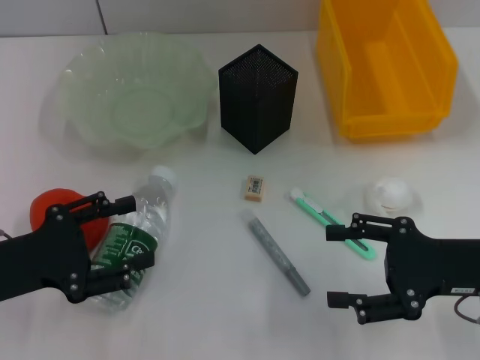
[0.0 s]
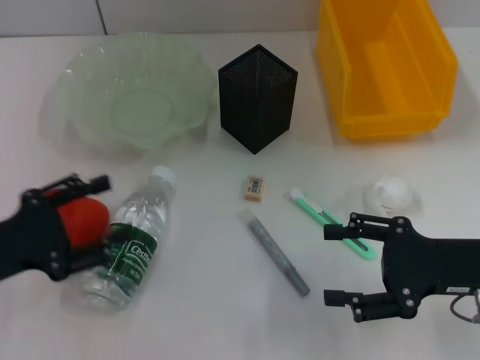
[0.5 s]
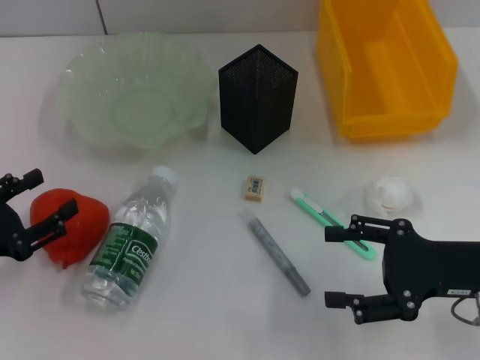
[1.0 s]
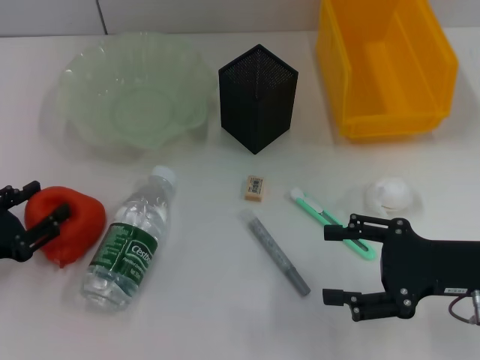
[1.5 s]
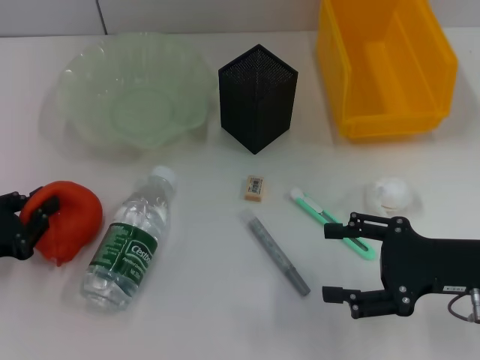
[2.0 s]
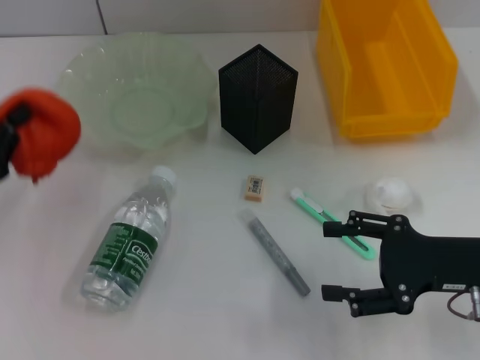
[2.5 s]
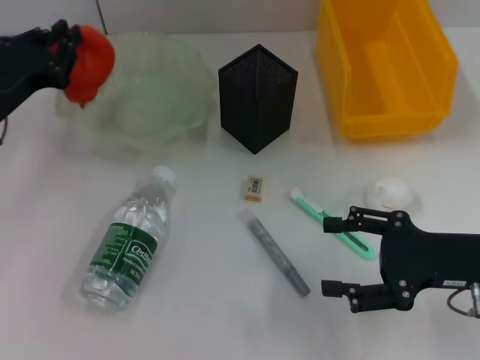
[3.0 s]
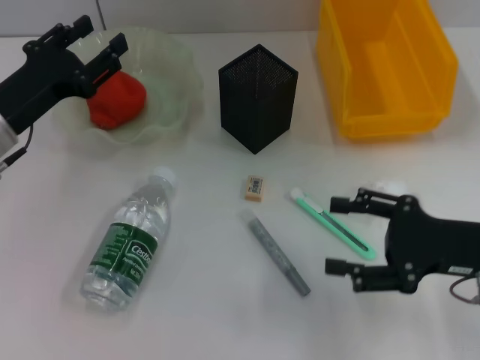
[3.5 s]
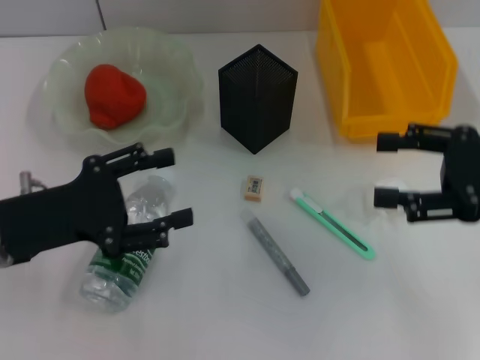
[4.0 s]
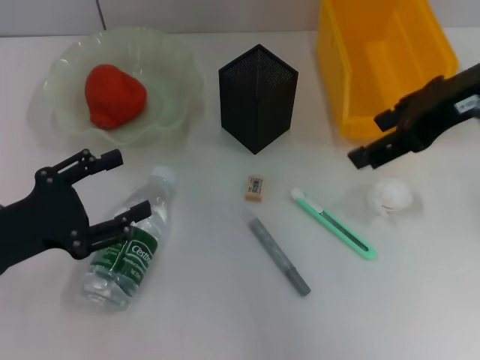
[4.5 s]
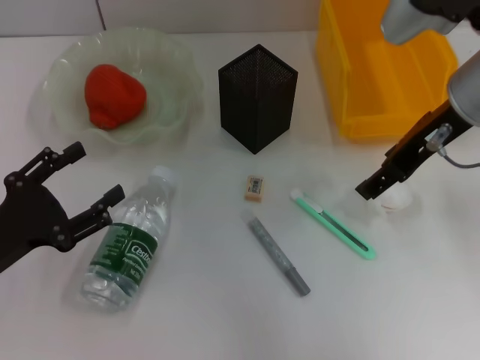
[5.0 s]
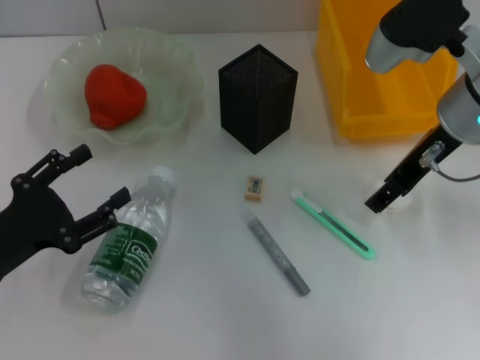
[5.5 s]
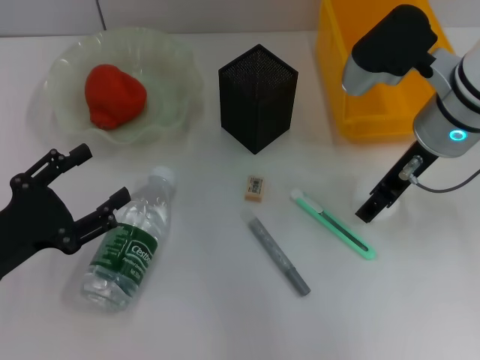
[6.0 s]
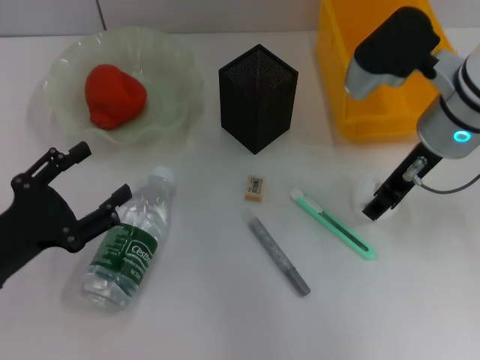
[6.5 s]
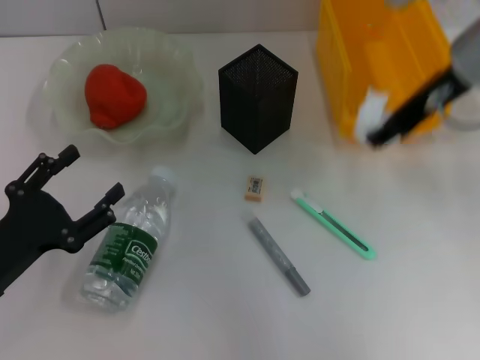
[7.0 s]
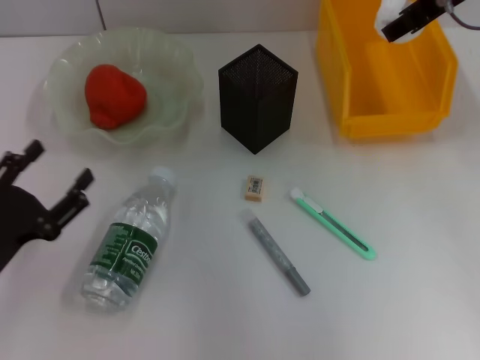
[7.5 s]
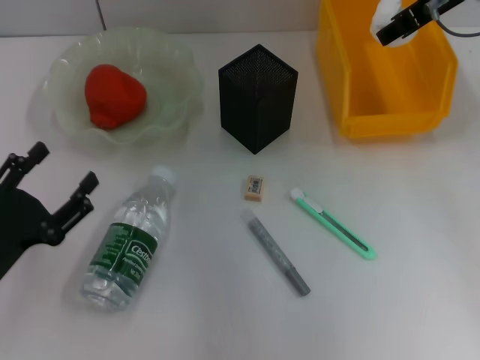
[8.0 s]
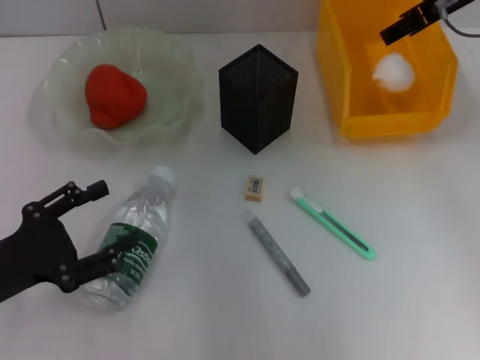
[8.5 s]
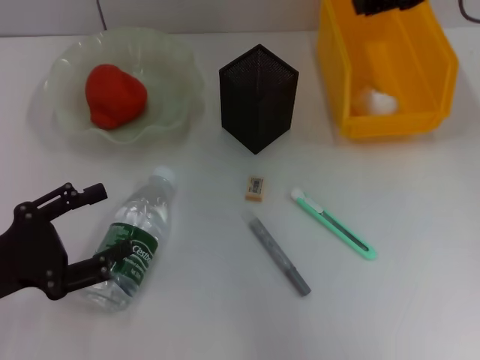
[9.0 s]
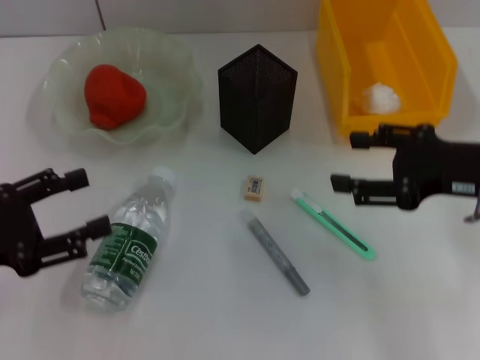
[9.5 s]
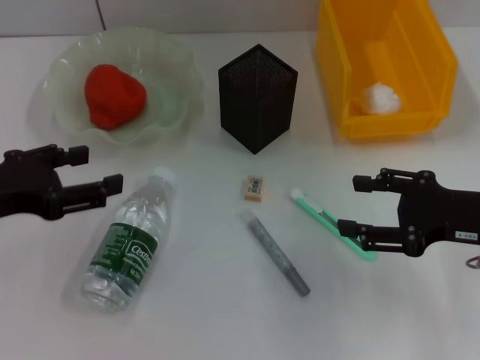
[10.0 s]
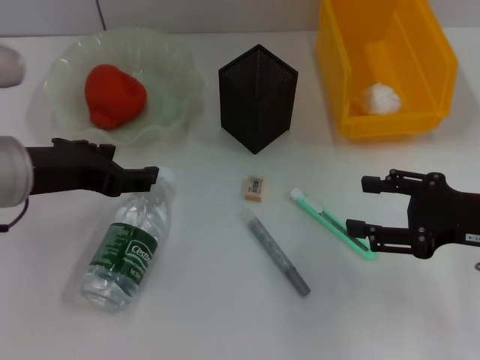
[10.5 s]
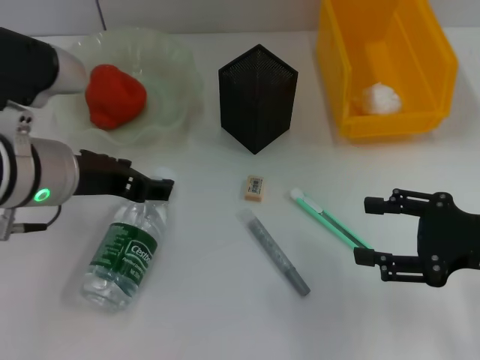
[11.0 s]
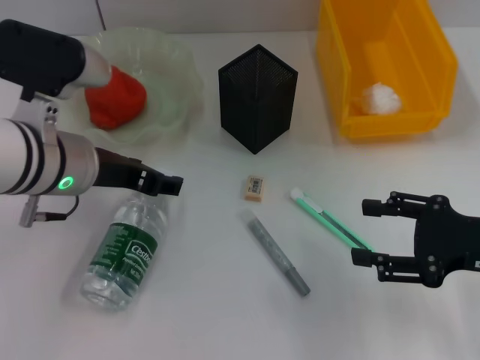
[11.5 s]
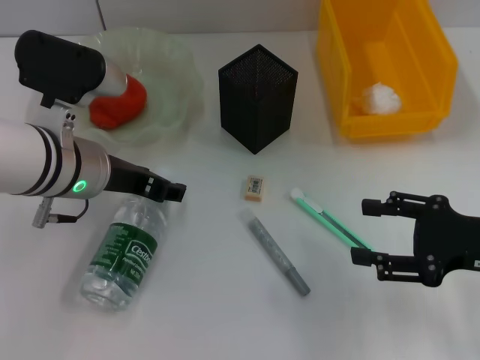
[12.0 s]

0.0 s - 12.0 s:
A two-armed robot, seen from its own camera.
Step, 0.0 s - 1.5 s: Grab the orange with the left hand.
Step, 2.0 s - 3.5 s: Place the orange into the fruit bowl with the left hand.
Step, 4.0 s - 6.0 s: Grab the paper ball with the right hand.
Step, 6.5 s - 8.5 s: Place the paper ball into the trash can with the right hand.
0.0 s - 2.0 s: The left gripper ends up about 5 cm from where it was, and closes up.
2.0 s - 4.0 s: The right gripper goes roughly 10 cm upward, while the left gripper shifts about 10 cm to the right and upward, moves roughly 15 cm forward and comes back, and opens up.
4.0 s - 6.0 s: The left gripper moves approximately 5 cm, while the right gripper shifts about 15 cm to the left and forward.
6.0 s - 8.0 s: The right gripper is displaced upward and forward by roughly 10 cm.
8.0 s - 10.0 s: The right gripper goes some 25 cm backward, downward and to the right. The left gripper goes approximately 15 cm upward.
10.0 s - 12.0 s: The left gripper is displaced to the right and forward by some 15 cm.

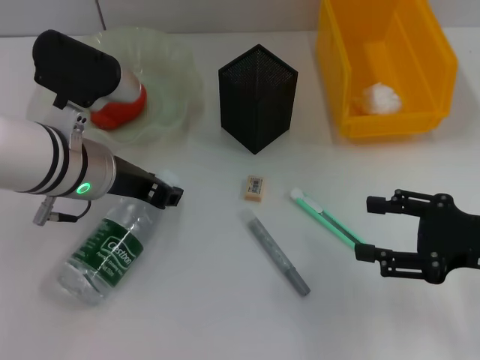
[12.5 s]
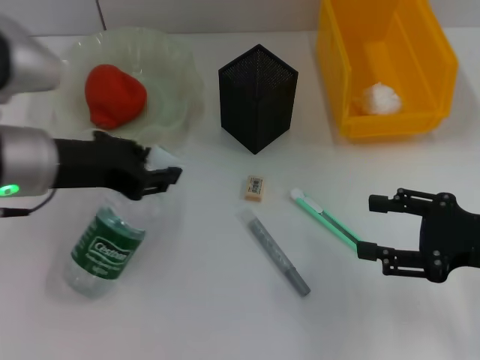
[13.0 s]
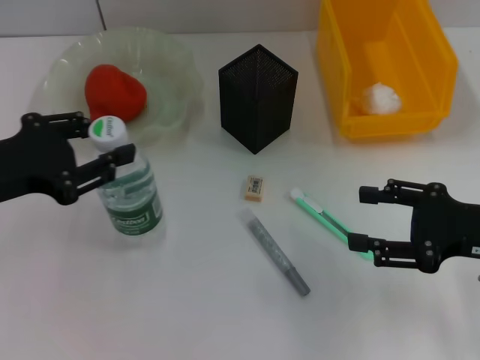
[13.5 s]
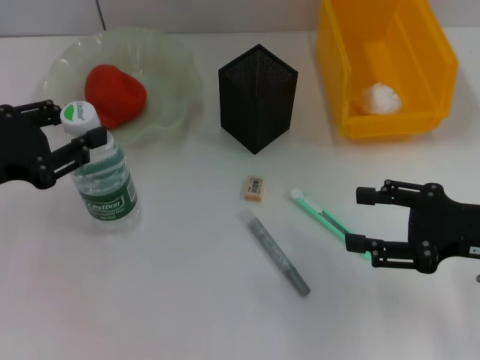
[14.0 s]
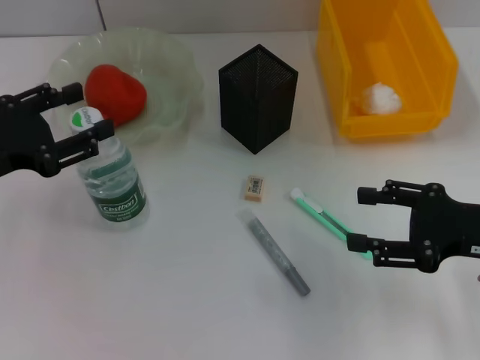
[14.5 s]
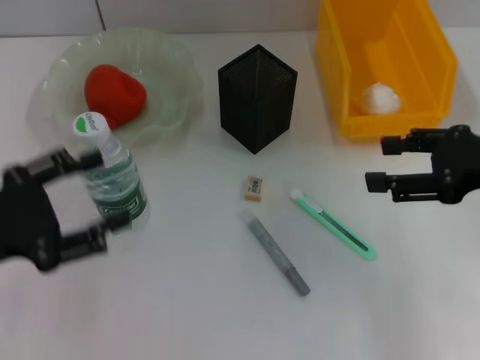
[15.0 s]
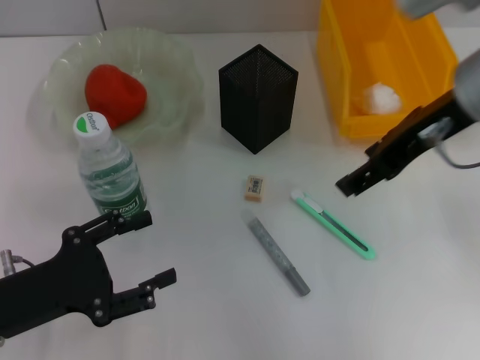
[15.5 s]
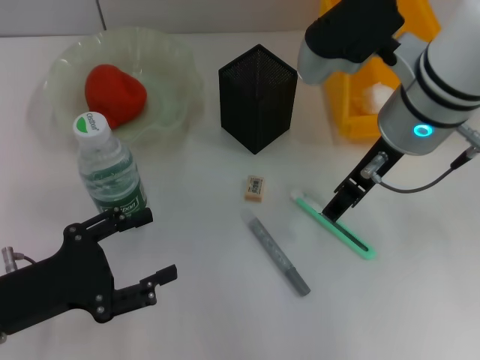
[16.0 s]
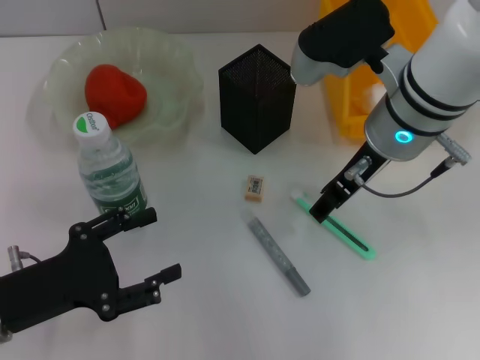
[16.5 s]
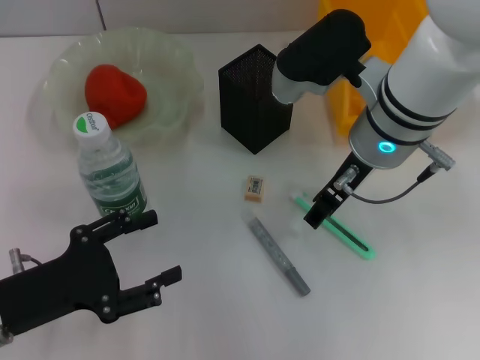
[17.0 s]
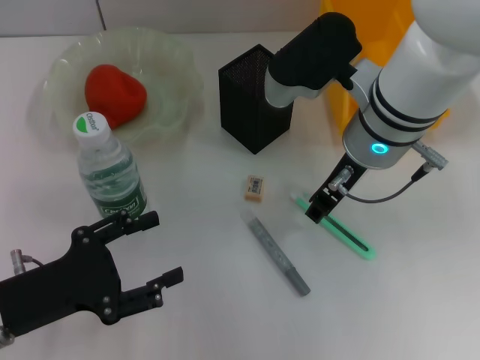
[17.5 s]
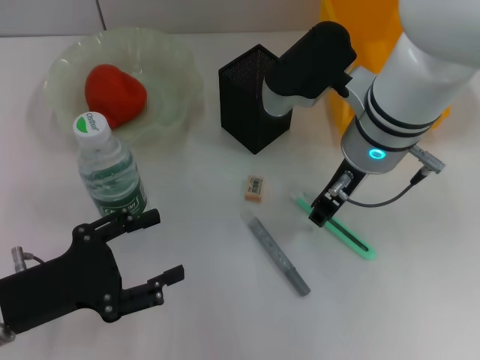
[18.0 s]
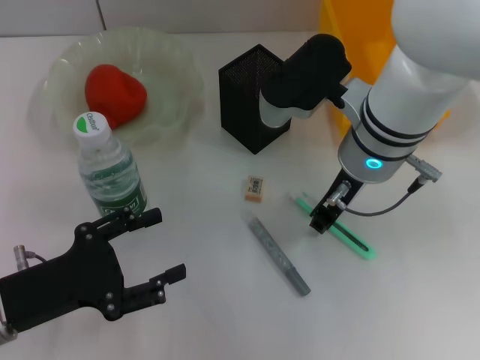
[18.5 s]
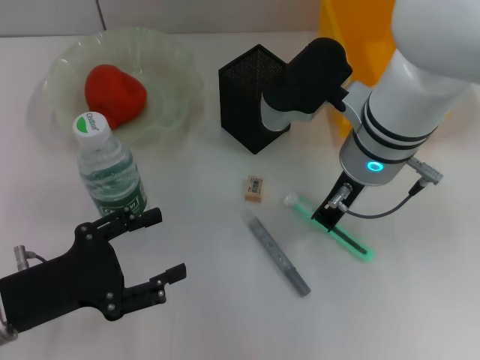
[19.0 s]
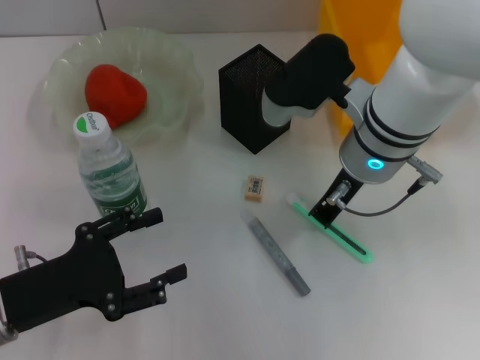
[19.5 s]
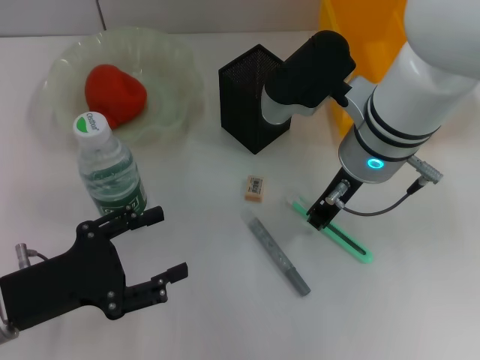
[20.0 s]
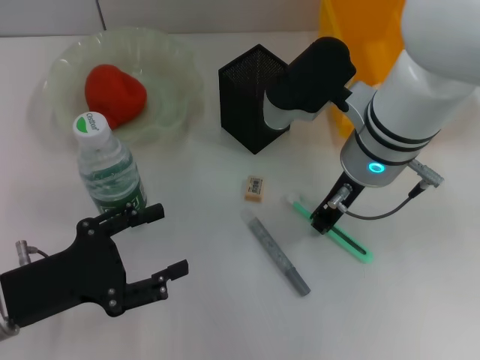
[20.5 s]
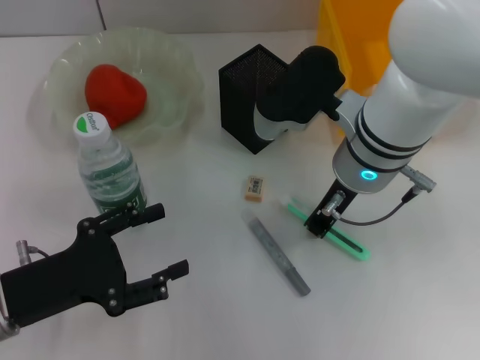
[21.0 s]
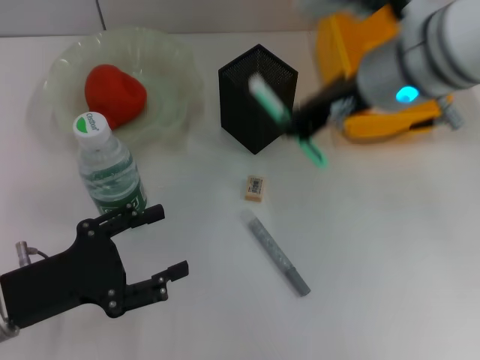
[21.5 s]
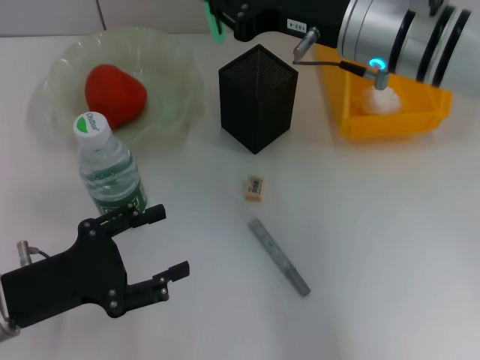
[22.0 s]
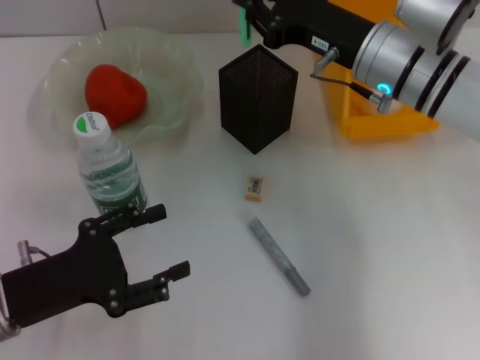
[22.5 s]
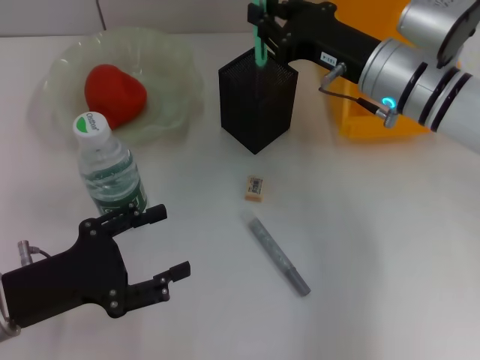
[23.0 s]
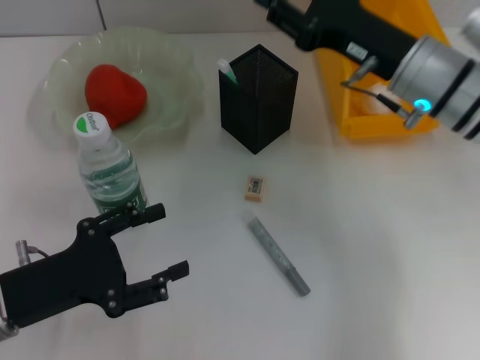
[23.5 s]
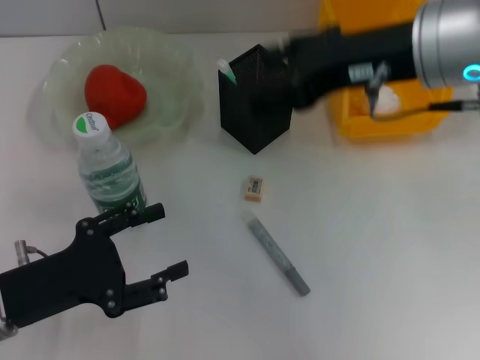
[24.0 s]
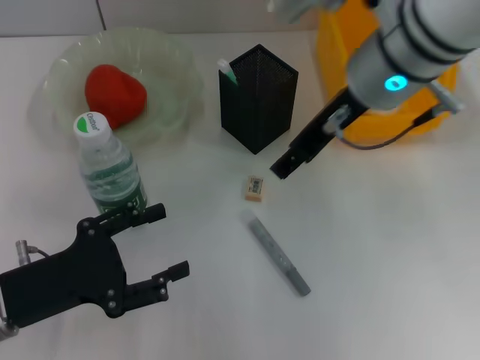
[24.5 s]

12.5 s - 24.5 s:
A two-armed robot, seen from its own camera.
Step, 13.0 s - 14.0 s: Place the water bottle on the table with the left hand.
Step, 14.5 s - 18.0 s: Grab the blue utility knife with the right hand.
Step, 18.5 s - 23.0 s: Place the blue utility knife into the pen holder with the right hand.
12.5 s - 14.5 s: The left gripper heads to the left and backward, covering roughly 15 cm.
14.5 s - 16.5 s: The right gripper moves to the left, forward and upward, about 20 cm; the left gripper moves downward and backward, some 10 cm.
16.5 s - 18.5 s: The right gripper closes its fingers.
18.5 s - 20.5 s: Both grippers stay about where they are.
20.5 s - 22.5 s: The right gripper goes upward and returns, about 10 cm each way.
22.5 s - 24.5 s: The right gripper travels upward by some 10 cm, and opens.

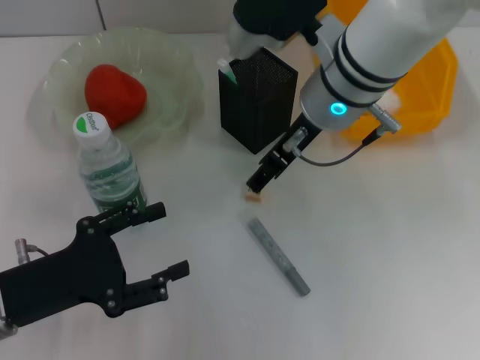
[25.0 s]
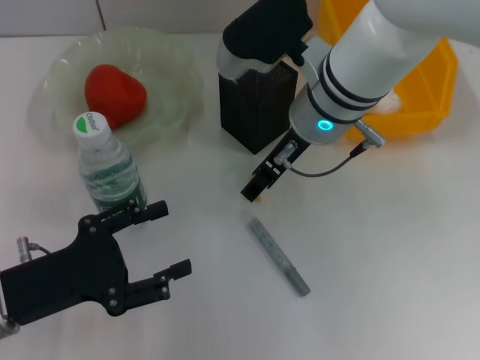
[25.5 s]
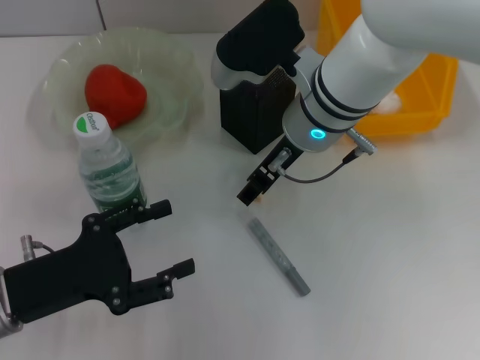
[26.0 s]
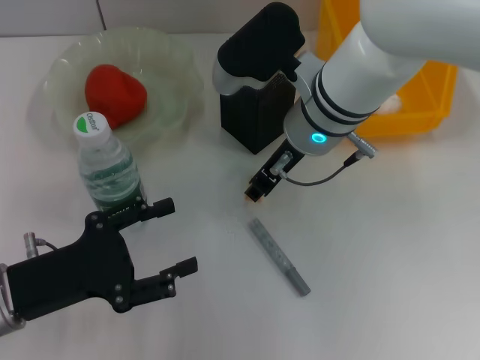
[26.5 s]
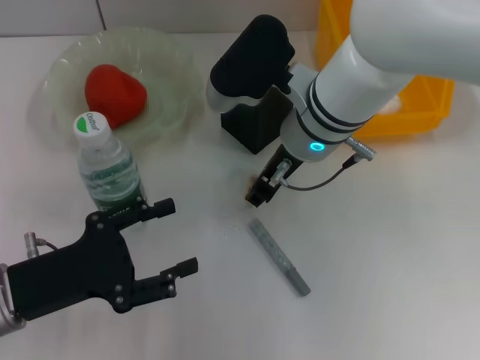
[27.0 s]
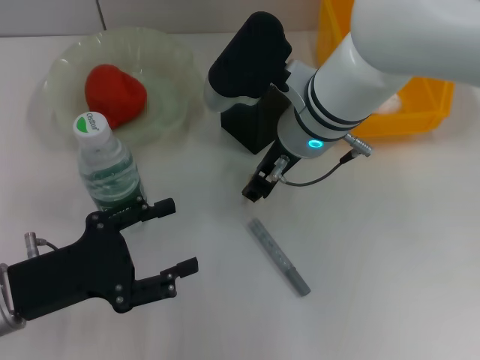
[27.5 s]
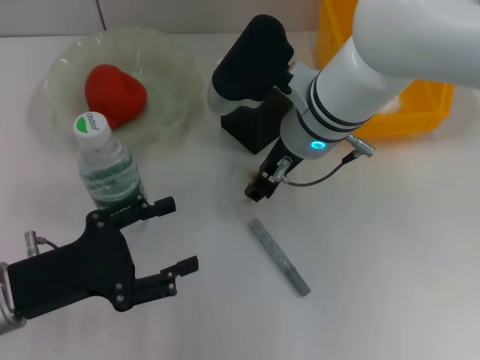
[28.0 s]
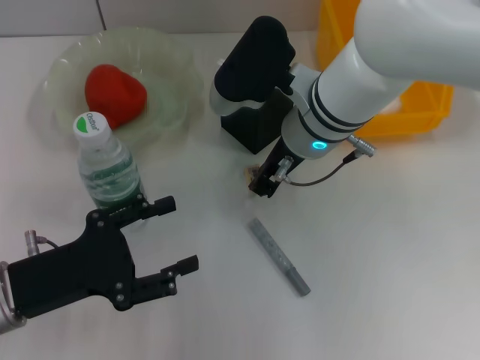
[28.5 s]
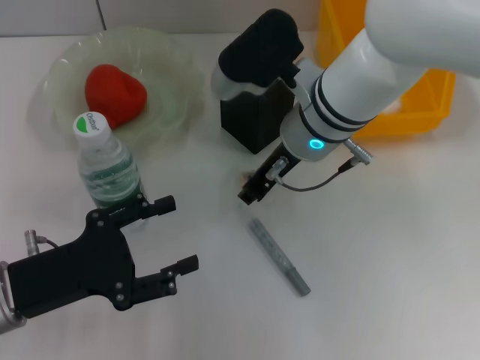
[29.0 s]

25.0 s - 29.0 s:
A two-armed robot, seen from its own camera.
25.0 s - 27.0 s: The right gripper closes its fingers.
27.0 s - 29.0 s: The grippers make only small movements.
